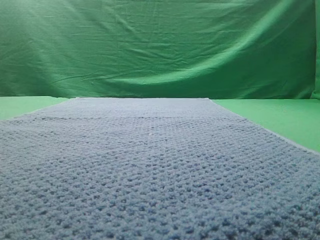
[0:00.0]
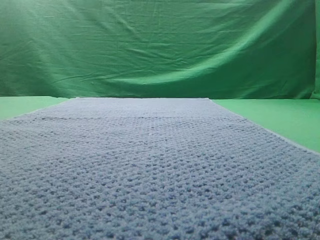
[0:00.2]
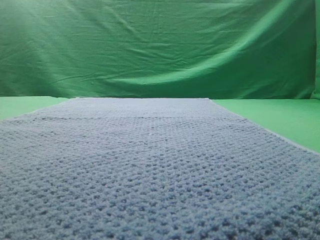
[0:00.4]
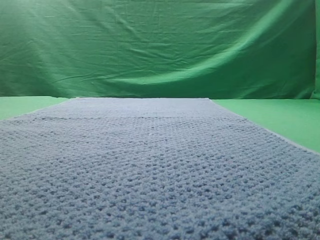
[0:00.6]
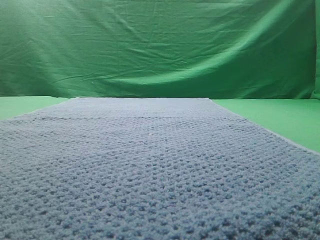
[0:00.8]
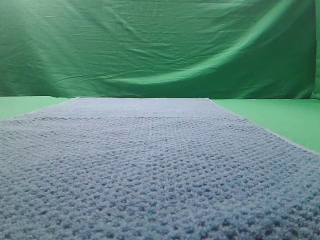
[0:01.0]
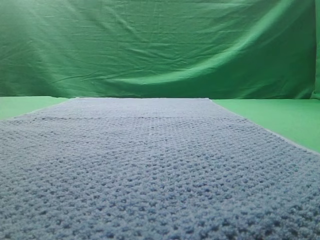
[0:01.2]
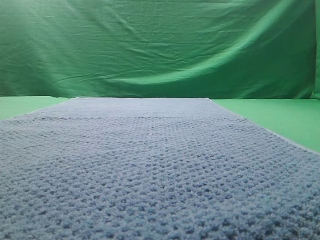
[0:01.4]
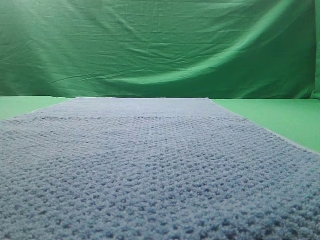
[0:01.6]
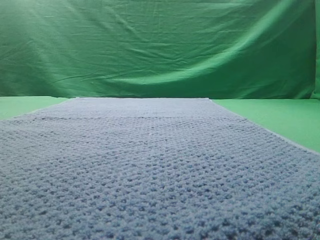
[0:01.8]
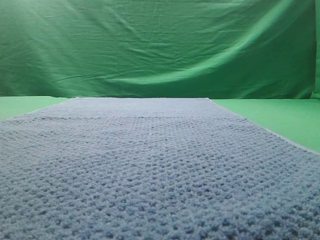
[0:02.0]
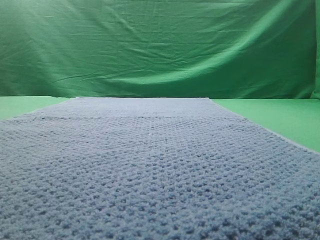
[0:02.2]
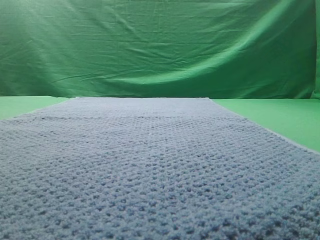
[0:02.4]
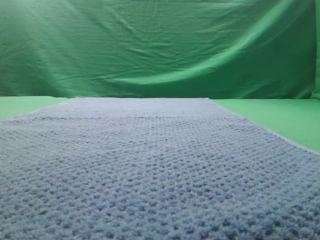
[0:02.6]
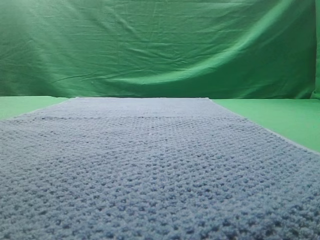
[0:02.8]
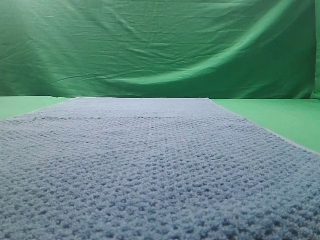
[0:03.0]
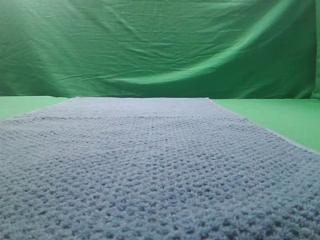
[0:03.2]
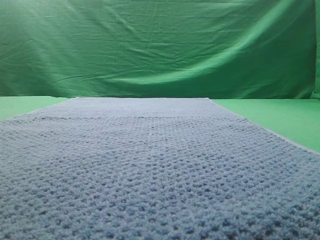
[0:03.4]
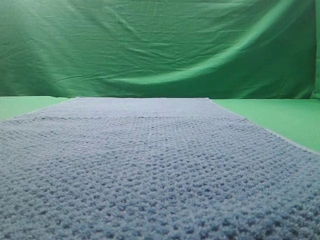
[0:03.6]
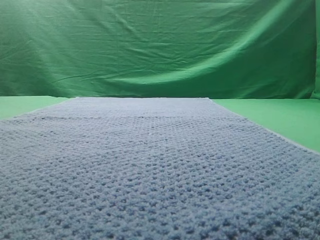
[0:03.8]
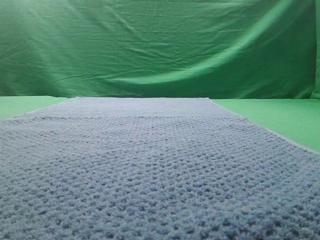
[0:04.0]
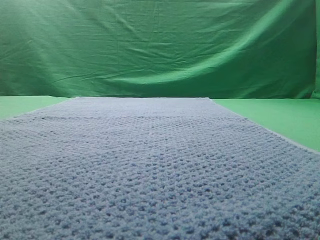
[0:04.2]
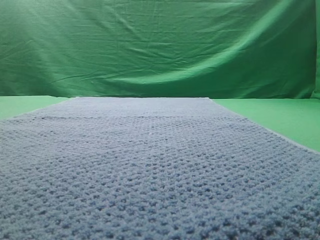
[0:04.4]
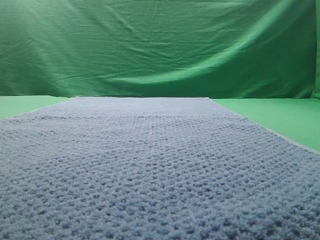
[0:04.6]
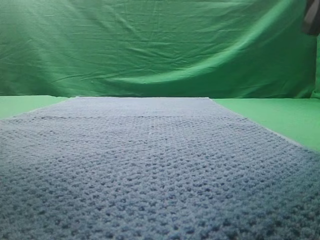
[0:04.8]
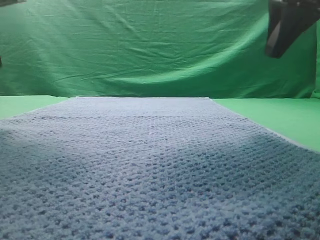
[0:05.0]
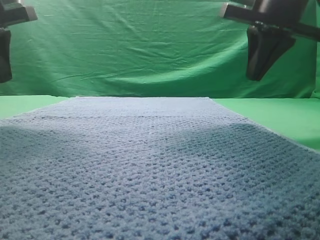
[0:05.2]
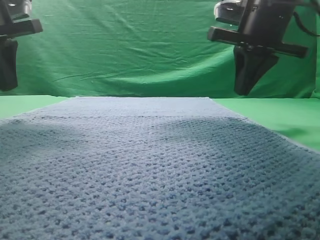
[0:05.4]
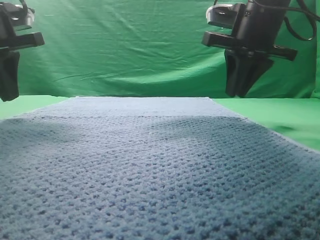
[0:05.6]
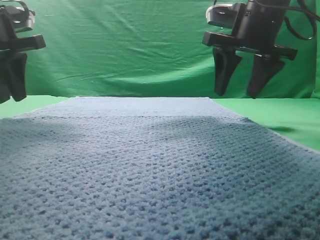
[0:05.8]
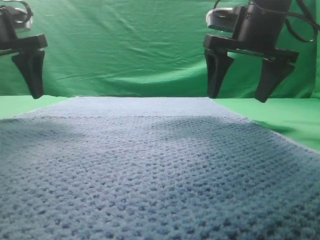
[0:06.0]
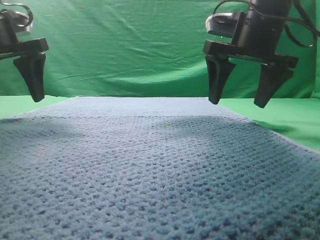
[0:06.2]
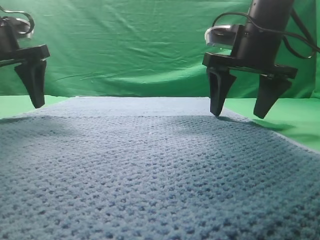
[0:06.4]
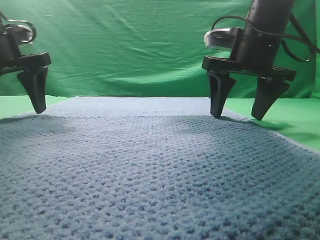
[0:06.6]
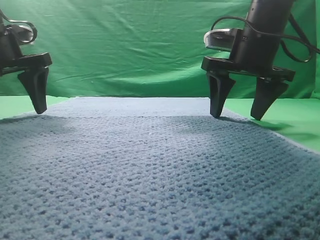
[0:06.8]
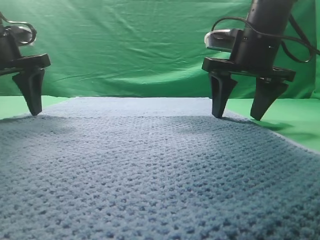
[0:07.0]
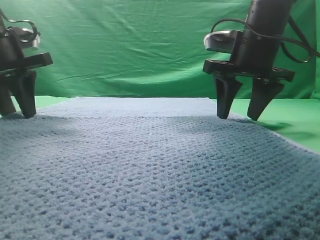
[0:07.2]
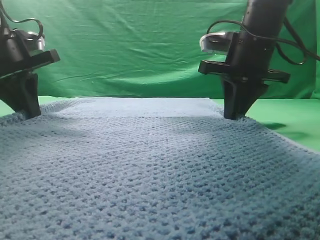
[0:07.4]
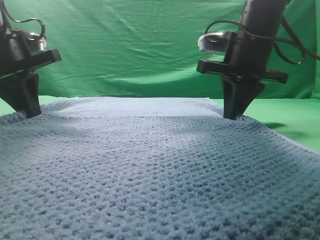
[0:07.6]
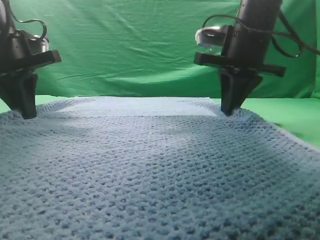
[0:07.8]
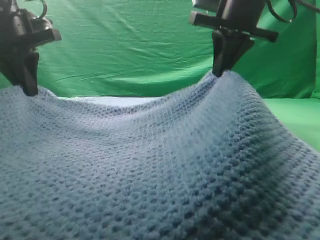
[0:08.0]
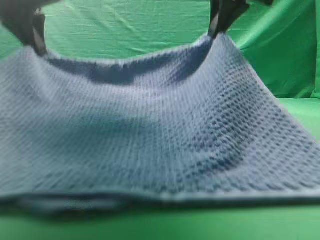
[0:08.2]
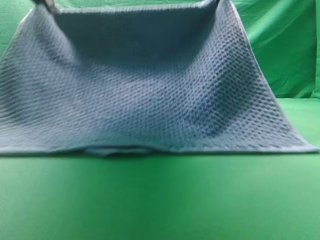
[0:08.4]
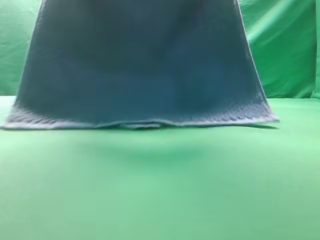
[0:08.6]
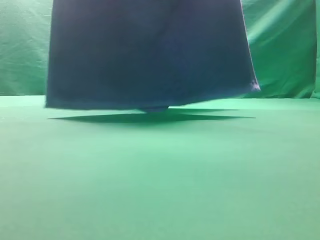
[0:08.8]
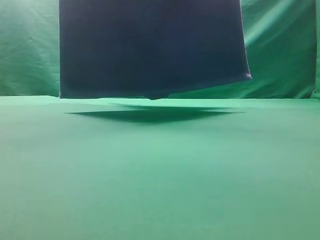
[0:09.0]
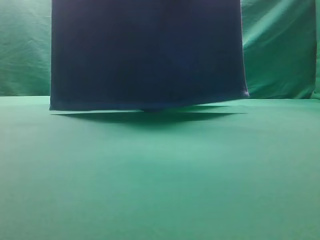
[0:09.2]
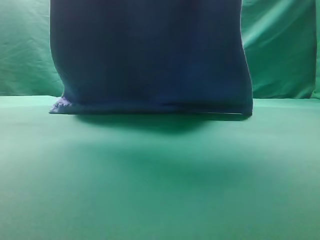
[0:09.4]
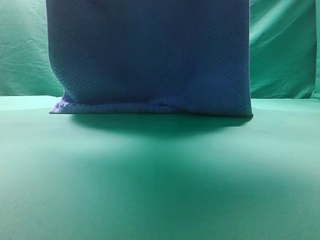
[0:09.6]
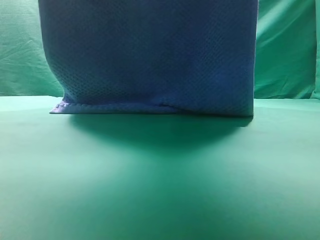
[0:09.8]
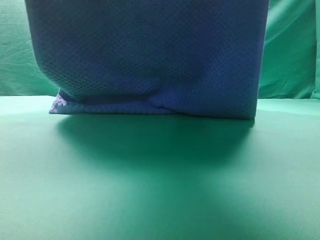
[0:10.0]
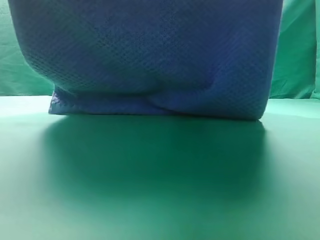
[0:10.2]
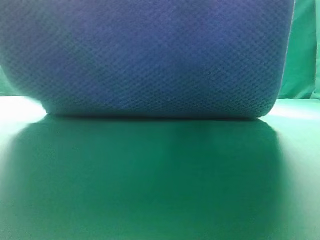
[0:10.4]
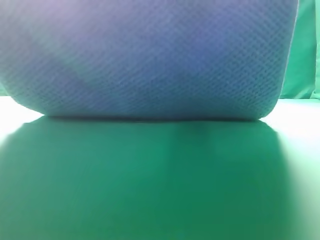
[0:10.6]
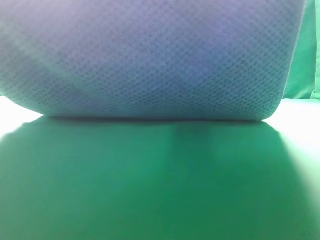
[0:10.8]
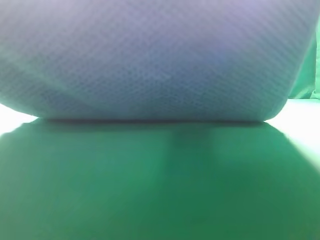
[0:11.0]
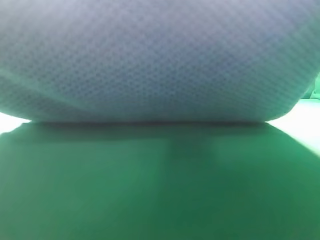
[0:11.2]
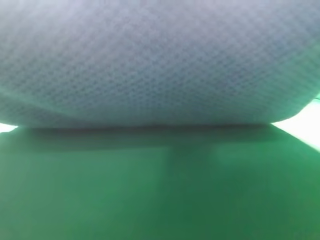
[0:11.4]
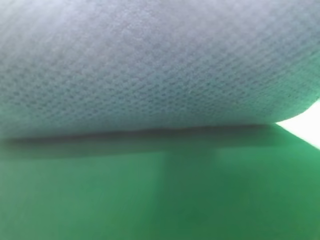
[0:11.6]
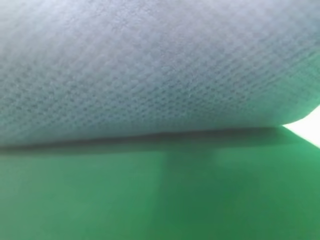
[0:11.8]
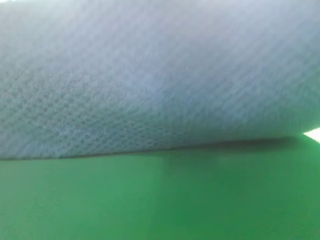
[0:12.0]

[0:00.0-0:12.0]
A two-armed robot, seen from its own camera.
Task of the whole recording: fold the towel on the table twice.
Step, 0:00.0 to 0:08.8: pick up the towel with two arm.

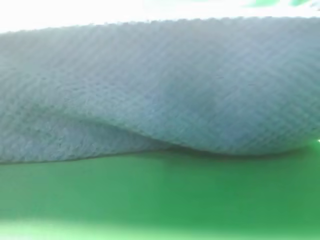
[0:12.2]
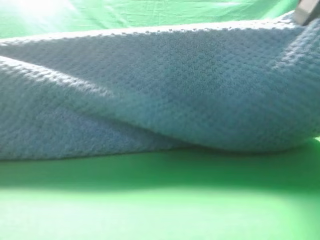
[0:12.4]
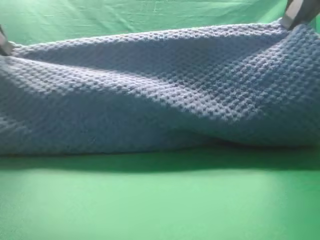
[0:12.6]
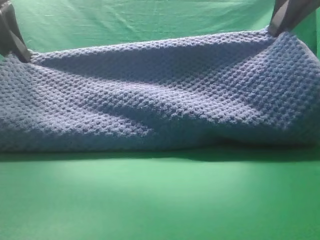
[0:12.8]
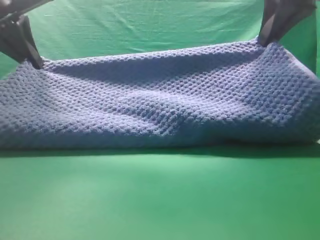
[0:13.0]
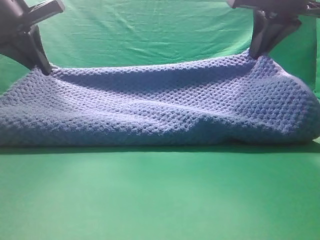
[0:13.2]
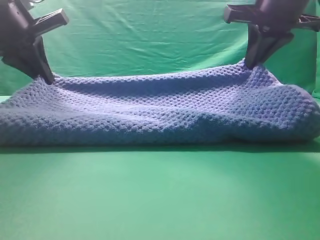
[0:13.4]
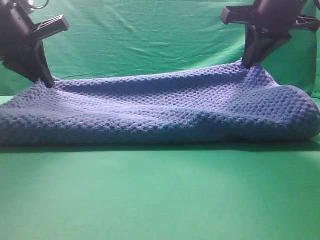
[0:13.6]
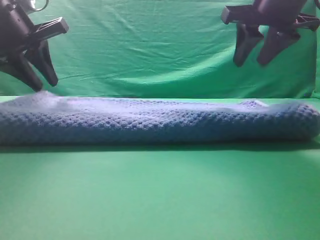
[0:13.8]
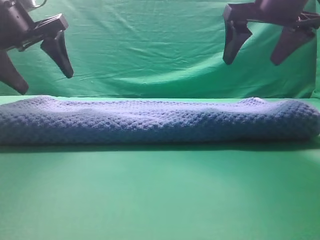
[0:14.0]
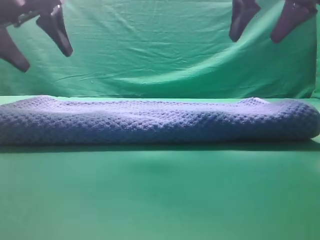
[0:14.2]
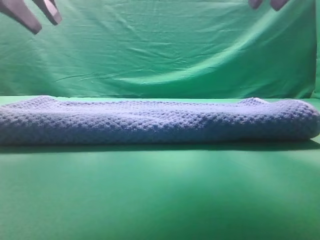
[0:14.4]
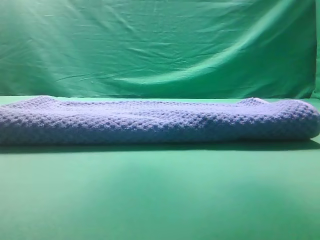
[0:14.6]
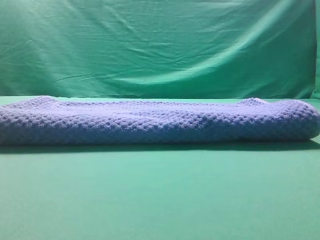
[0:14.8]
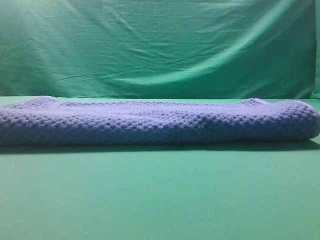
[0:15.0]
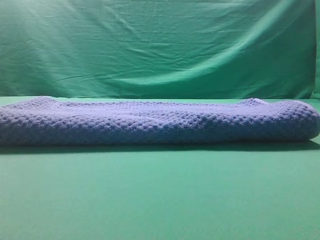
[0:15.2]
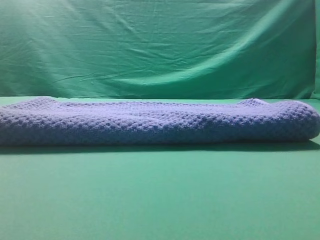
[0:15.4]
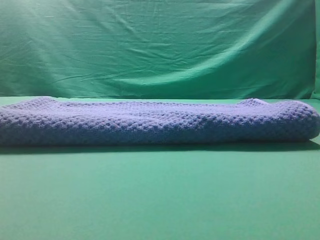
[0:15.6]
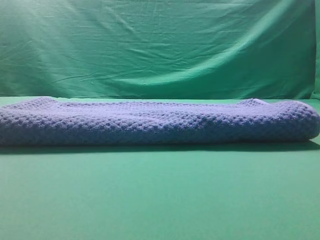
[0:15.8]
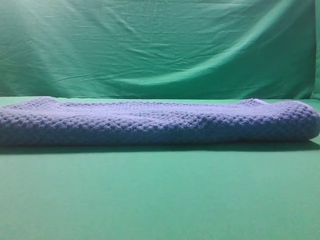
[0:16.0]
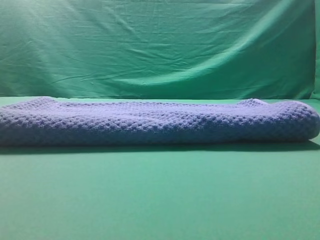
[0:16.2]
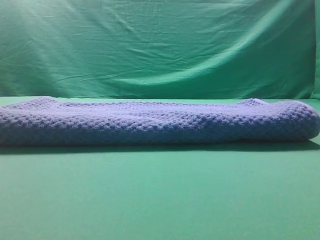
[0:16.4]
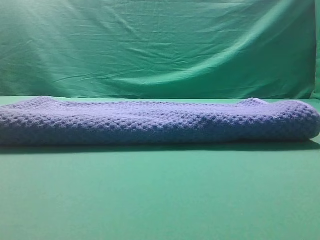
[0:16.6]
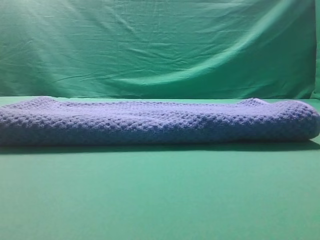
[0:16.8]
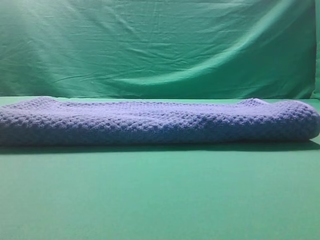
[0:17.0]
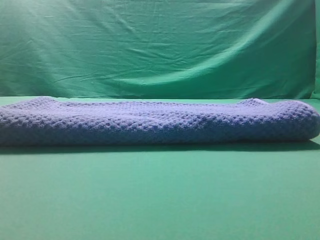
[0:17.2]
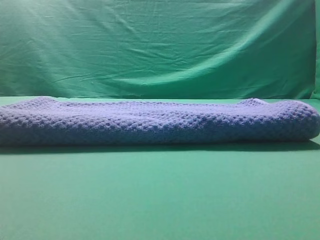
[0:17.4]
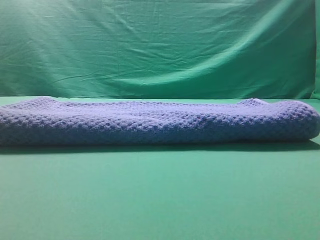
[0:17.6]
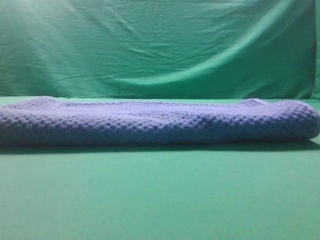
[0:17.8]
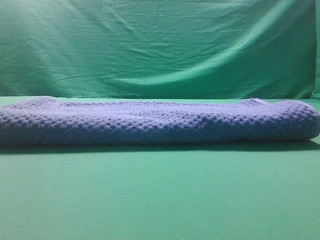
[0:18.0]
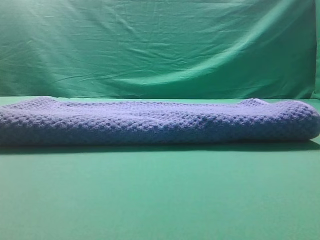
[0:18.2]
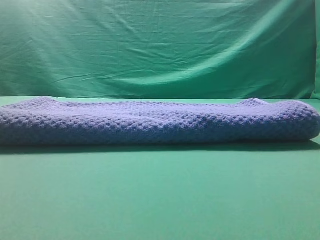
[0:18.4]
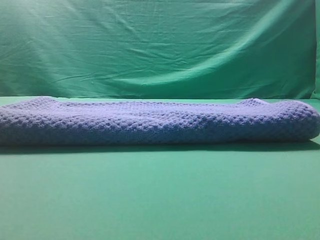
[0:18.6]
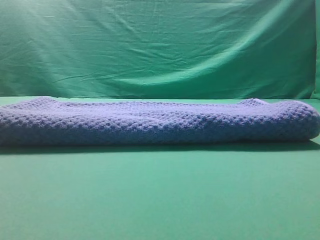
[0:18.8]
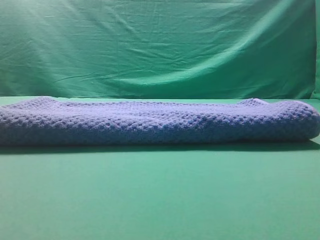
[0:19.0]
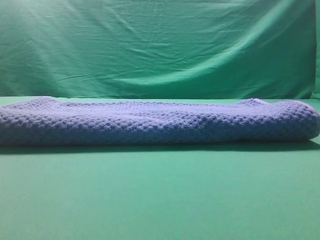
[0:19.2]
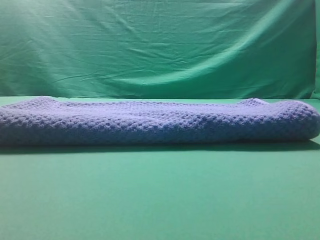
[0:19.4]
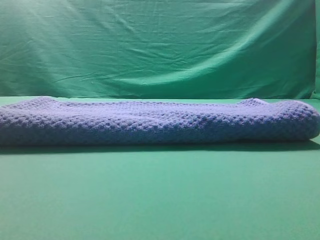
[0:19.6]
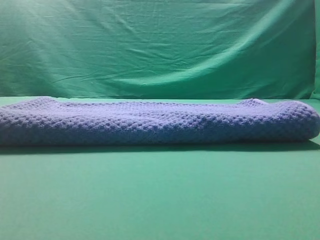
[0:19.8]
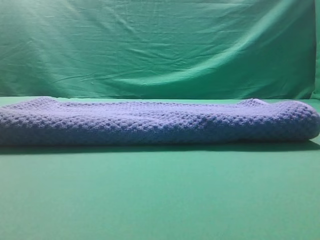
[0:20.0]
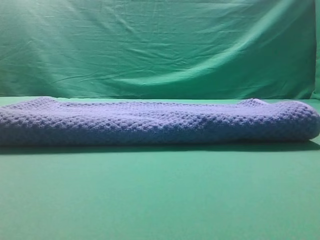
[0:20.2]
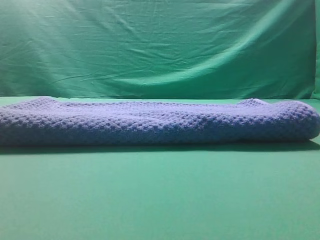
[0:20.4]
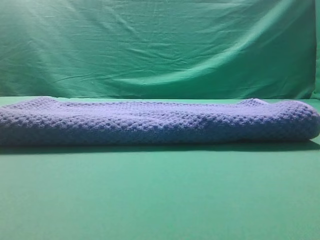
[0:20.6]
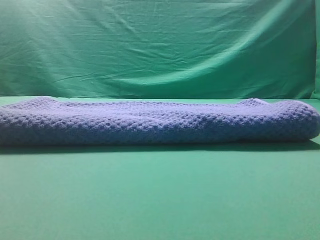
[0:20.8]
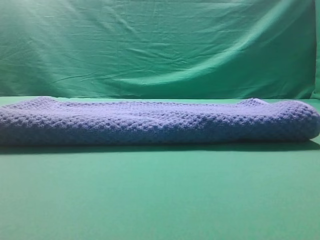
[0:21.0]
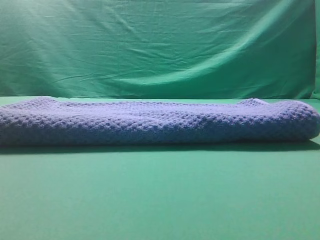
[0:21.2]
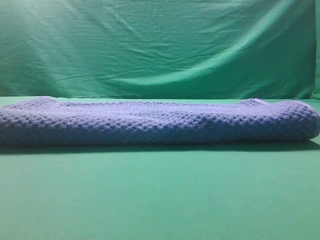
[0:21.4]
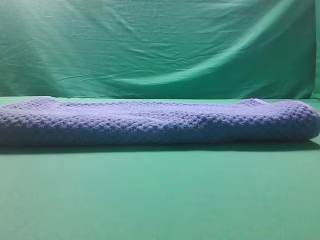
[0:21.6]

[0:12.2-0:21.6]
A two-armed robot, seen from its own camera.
Task of the whole recording: fold the towel on the table twice.
Step, 0:12.2 to 0:14.2: Fold the towel twice on the table.
